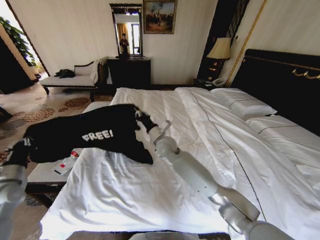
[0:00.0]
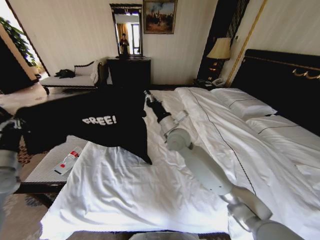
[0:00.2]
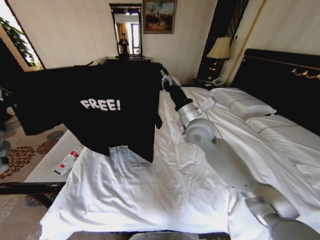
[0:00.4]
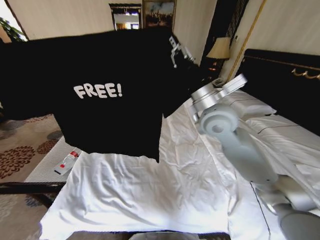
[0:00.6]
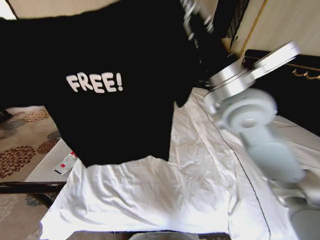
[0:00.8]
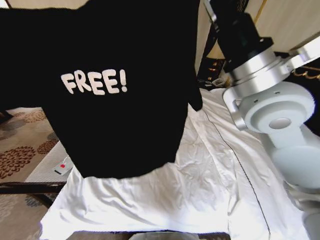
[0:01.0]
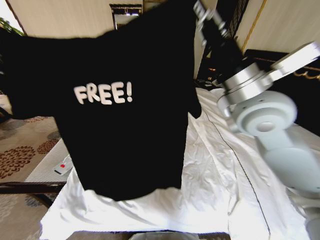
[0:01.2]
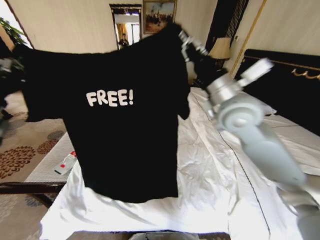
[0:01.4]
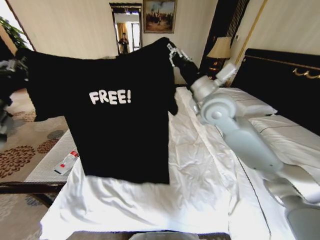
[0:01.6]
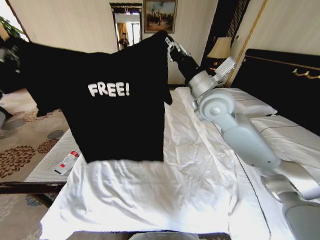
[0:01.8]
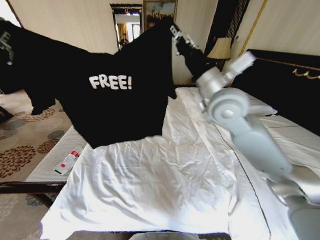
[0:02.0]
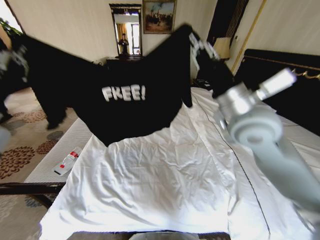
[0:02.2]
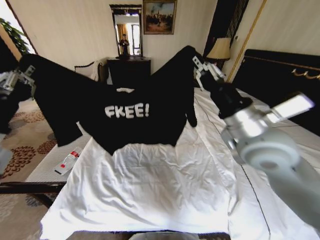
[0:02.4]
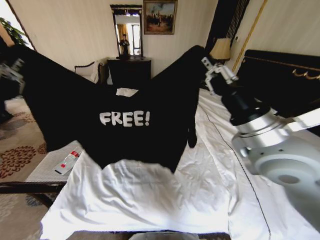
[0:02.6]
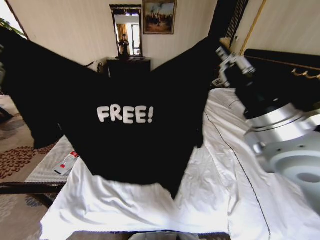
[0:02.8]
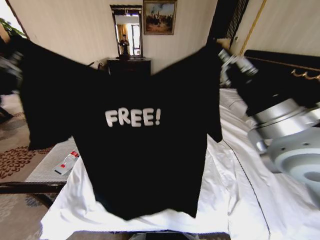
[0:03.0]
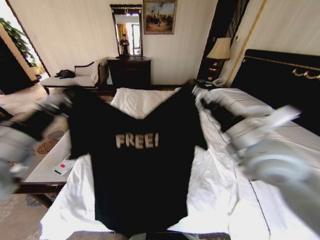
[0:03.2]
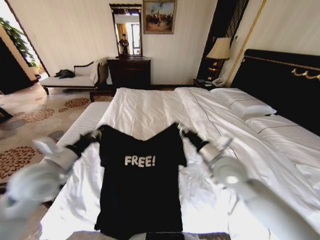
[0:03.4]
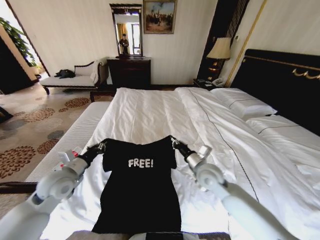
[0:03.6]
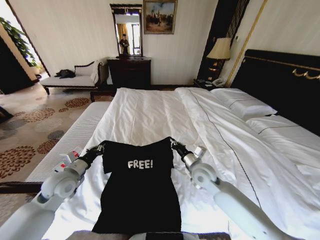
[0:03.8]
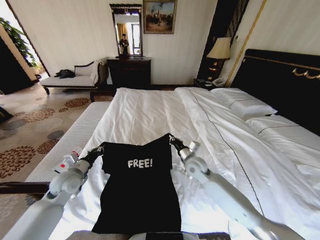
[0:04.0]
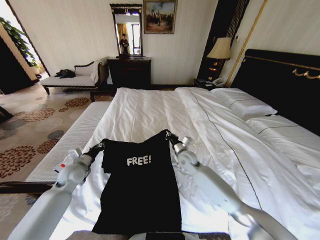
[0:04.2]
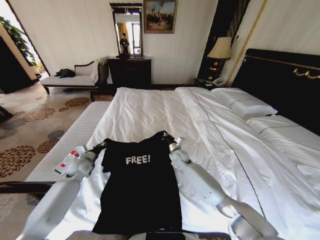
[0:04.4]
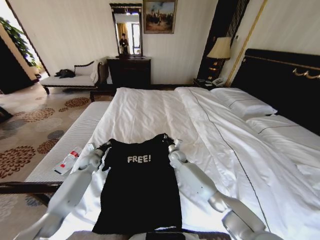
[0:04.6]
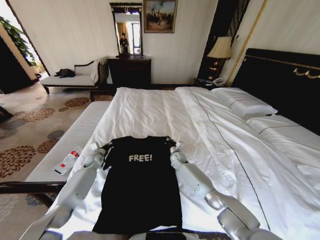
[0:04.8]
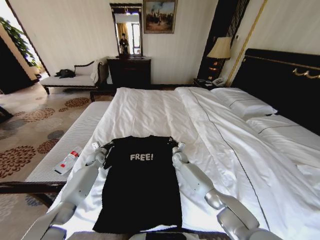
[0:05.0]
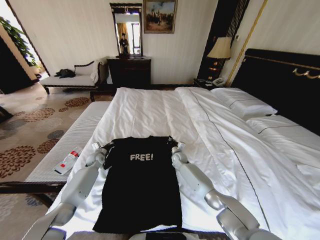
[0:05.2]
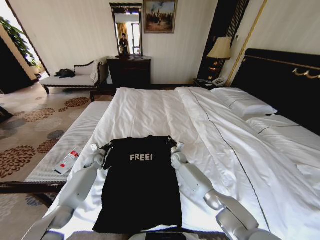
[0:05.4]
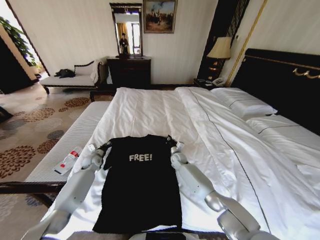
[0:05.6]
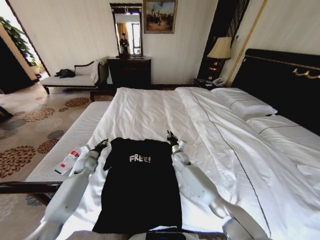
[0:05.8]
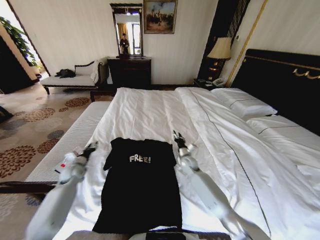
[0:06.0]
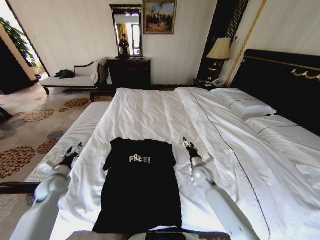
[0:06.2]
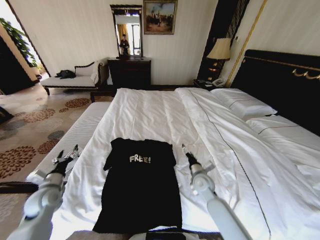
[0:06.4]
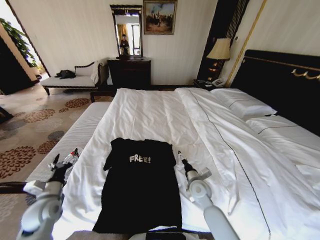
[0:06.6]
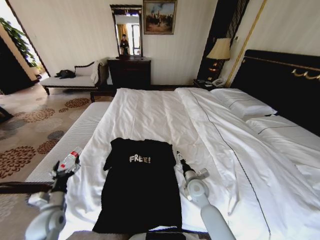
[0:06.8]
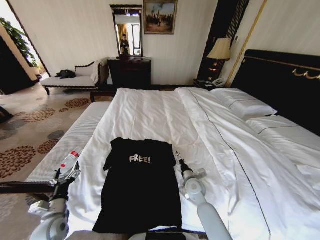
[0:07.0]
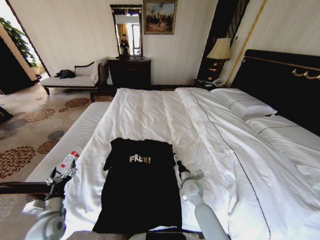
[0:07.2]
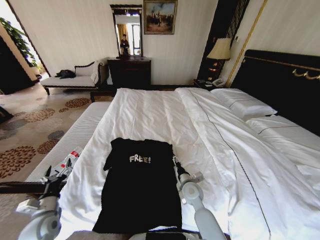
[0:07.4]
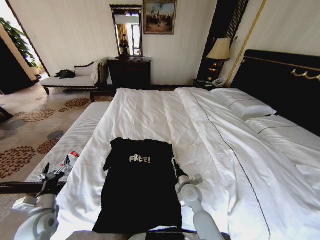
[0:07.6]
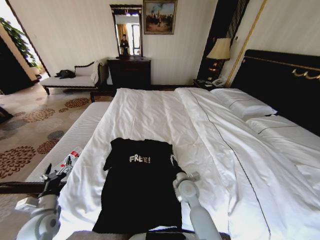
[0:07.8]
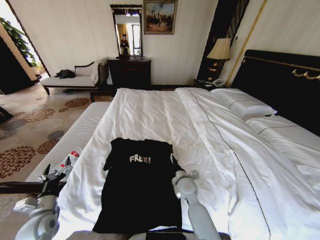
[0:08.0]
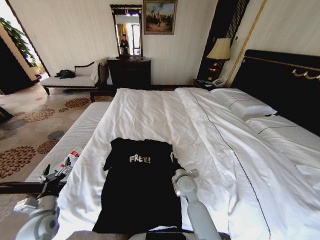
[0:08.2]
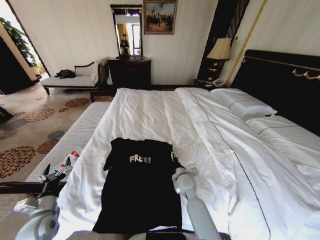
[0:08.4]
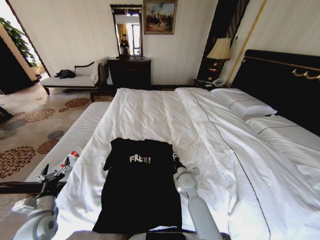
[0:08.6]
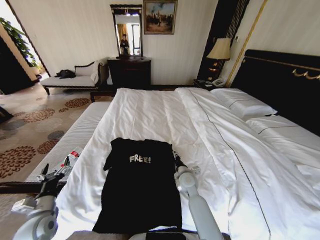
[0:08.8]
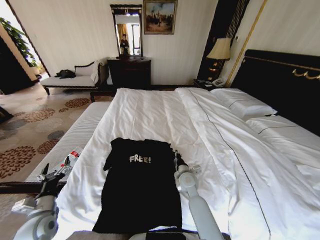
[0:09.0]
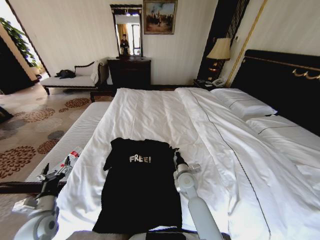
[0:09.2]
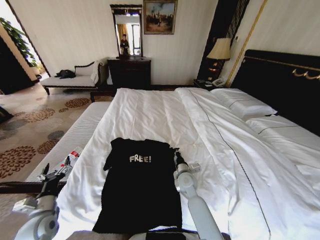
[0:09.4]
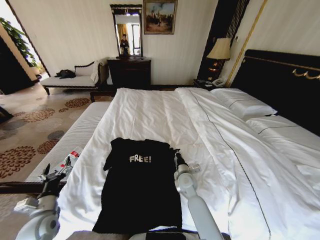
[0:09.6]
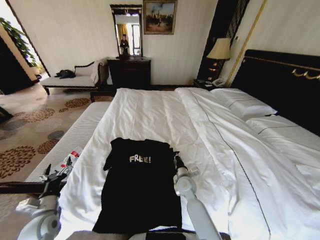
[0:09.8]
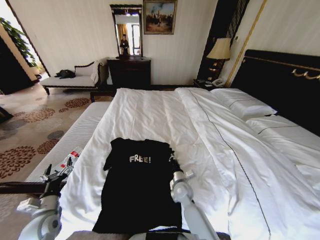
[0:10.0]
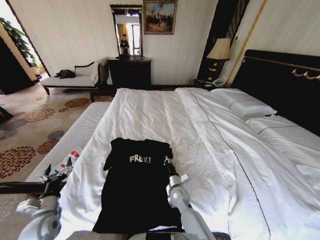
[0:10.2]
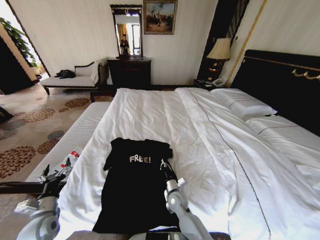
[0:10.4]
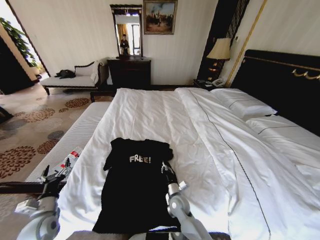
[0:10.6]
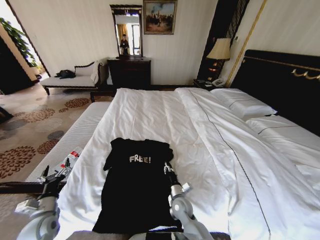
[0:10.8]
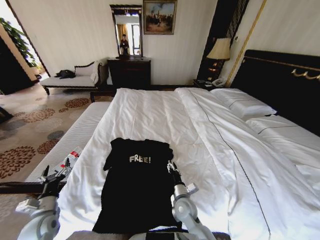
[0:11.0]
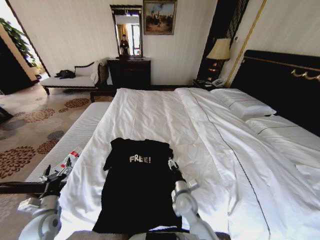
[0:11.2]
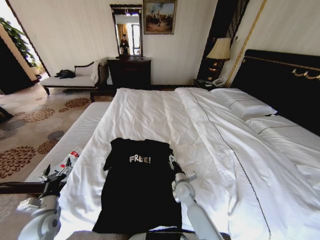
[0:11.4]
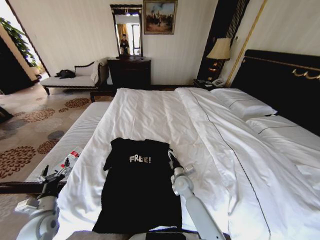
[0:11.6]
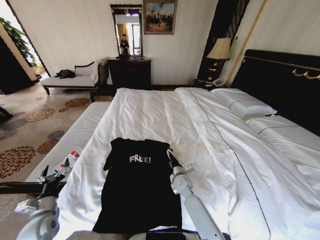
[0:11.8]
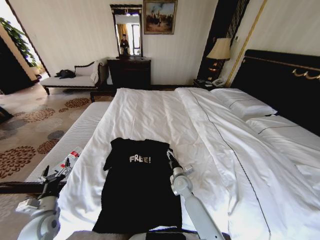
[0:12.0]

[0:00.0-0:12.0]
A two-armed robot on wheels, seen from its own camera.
Task of the whole recording: Fold the clothes on the bed.
0:00.0 to 0:01.6: The right gripper heads upward and to the right, covering about 25 cm. Meanwhile the left gripper moves upward, about 20 cm.
0:01.6 to 0:03.0: Both grippers move backward and to the right, approximately 15 cm.
0:03.0 to 0:04.4: Both grippers travel together downward and forward, some 40 cm.
0:04.4 to 0:06.0: The right gripper is displaced to the right by roughly 5 cm, and opens its fingers. Meanwhile the left gripper is displaced to the left by approximately 5 cm, goes forward and returns, roughly 10 cm each way, and opens up.
0:06.0 to 0:07.6: The two grippers go roughly 15 cm backward. The left gripper opens; the right gripper opens its fingers.
0:07.6 to 0:09.0: The right gripper moves forward, some 5 cm, and closes its fingers.
0:09.0 to 0:10.4: The right gripper is displaced downward and backward by roughly 10 cm.
0:10.4 to 0:12.0: The right gripper moves forward, approximately 5 cm, and opens its fingers.

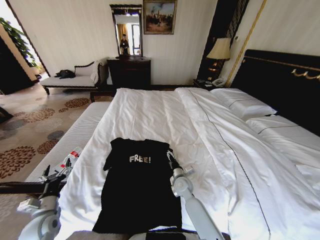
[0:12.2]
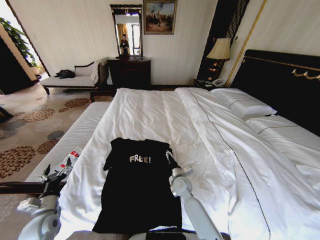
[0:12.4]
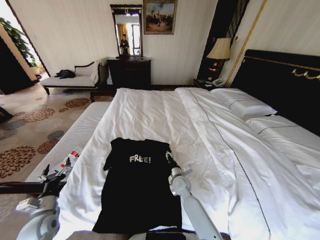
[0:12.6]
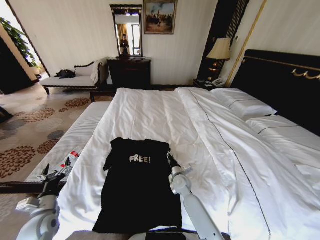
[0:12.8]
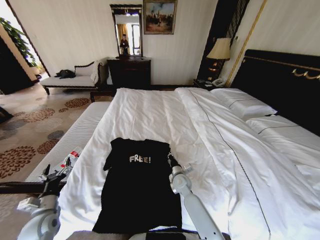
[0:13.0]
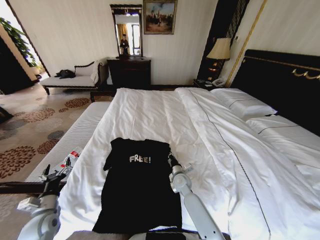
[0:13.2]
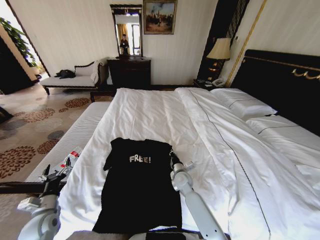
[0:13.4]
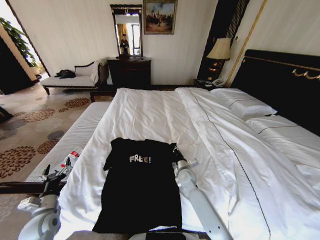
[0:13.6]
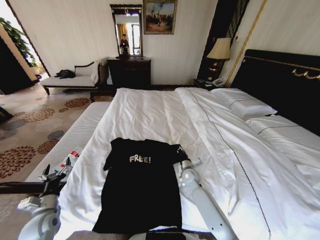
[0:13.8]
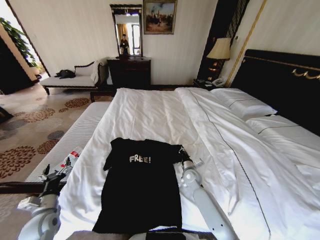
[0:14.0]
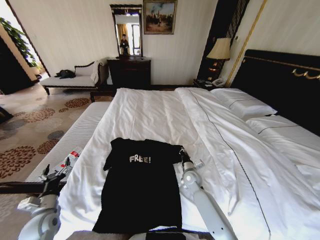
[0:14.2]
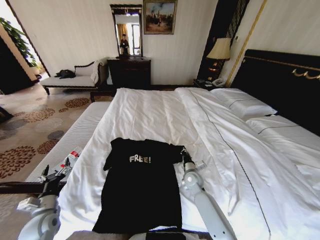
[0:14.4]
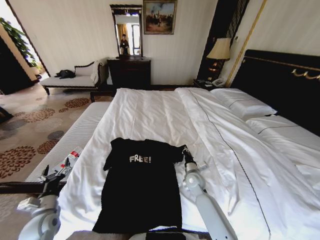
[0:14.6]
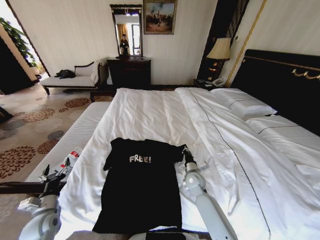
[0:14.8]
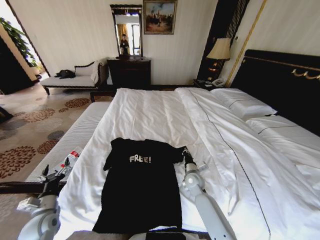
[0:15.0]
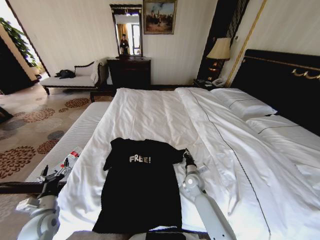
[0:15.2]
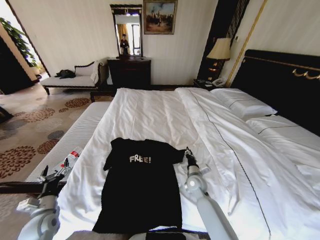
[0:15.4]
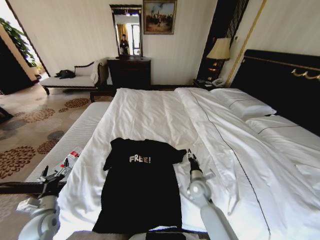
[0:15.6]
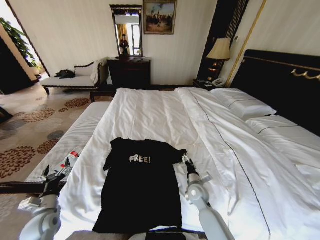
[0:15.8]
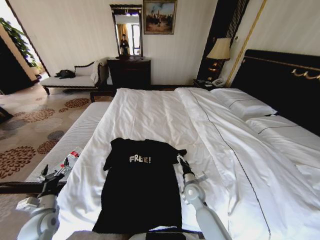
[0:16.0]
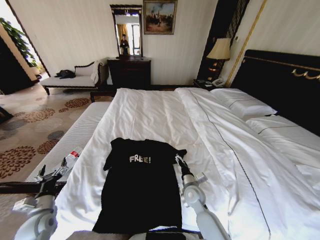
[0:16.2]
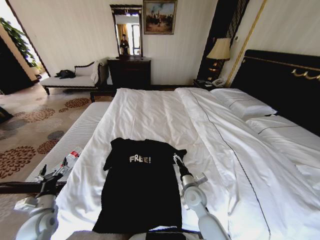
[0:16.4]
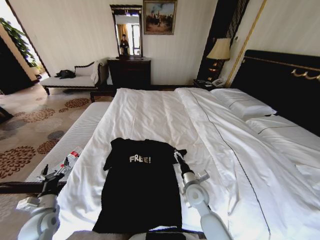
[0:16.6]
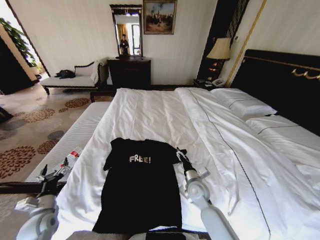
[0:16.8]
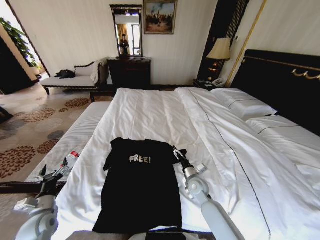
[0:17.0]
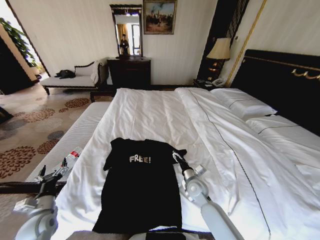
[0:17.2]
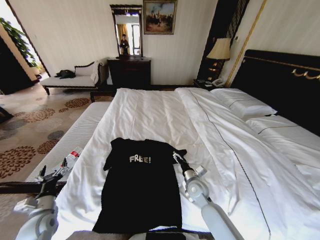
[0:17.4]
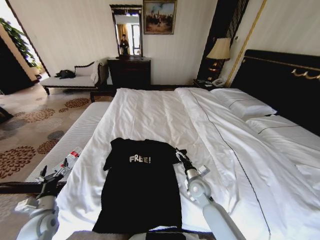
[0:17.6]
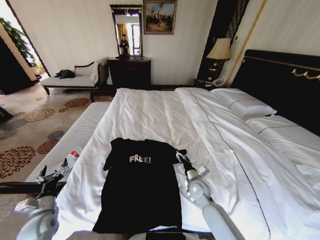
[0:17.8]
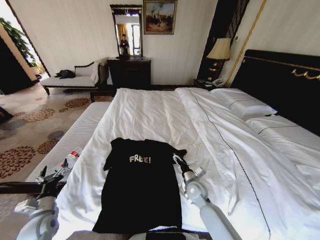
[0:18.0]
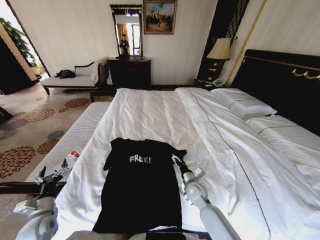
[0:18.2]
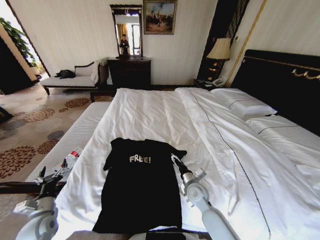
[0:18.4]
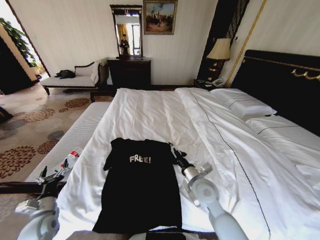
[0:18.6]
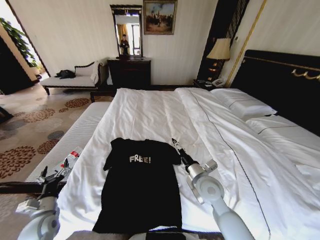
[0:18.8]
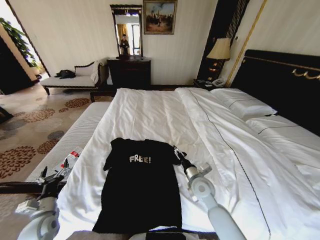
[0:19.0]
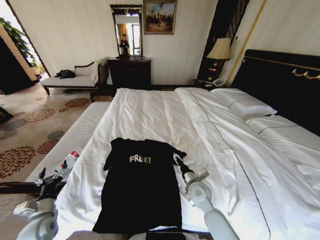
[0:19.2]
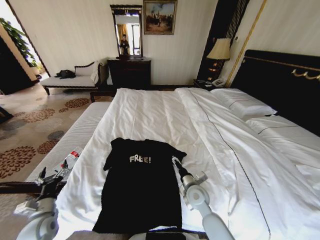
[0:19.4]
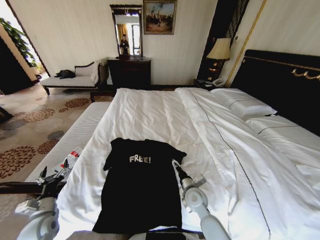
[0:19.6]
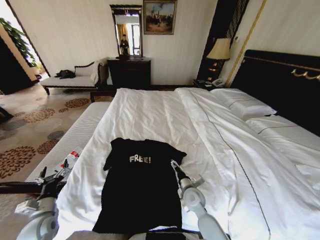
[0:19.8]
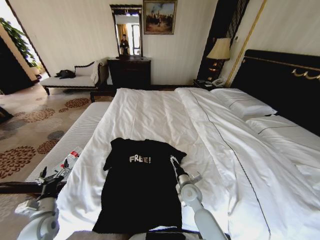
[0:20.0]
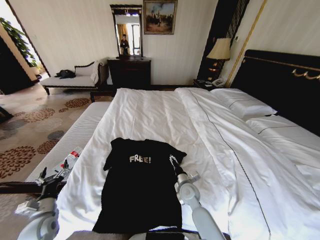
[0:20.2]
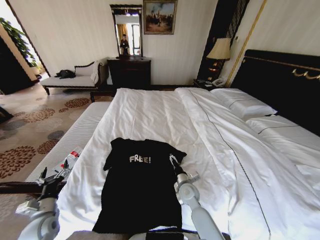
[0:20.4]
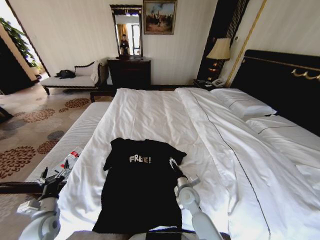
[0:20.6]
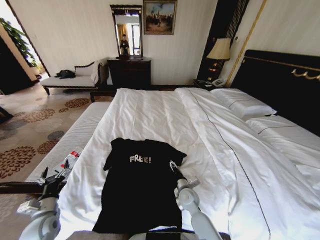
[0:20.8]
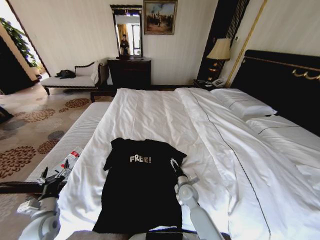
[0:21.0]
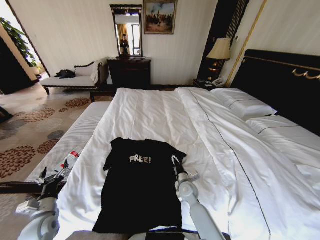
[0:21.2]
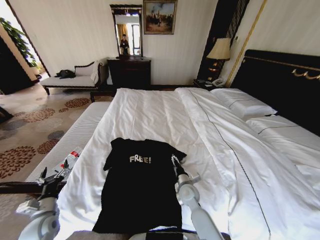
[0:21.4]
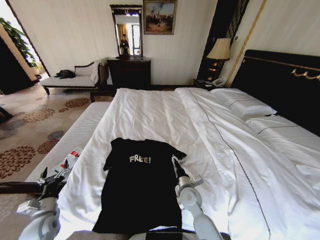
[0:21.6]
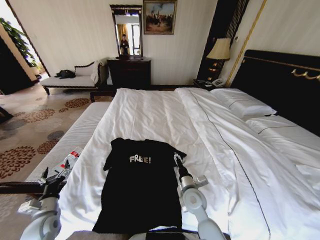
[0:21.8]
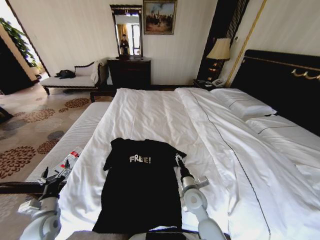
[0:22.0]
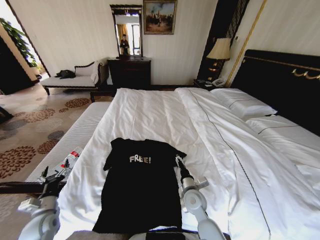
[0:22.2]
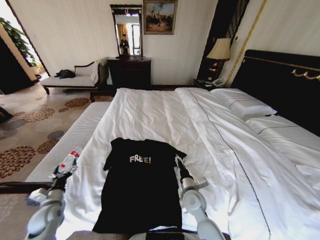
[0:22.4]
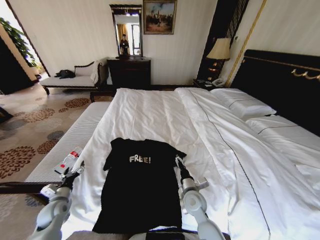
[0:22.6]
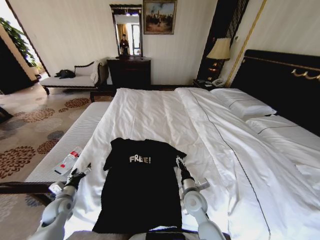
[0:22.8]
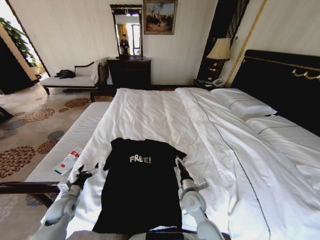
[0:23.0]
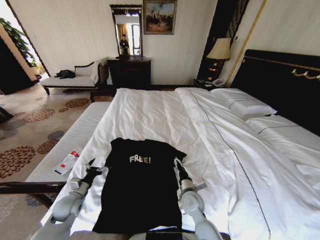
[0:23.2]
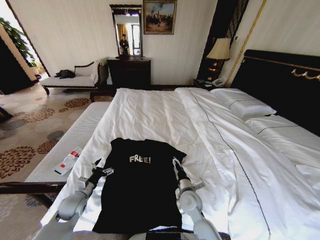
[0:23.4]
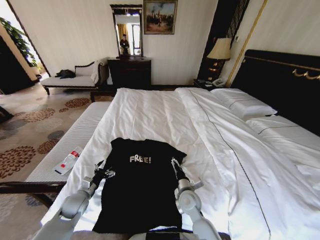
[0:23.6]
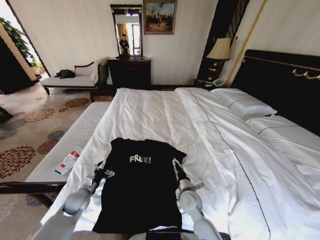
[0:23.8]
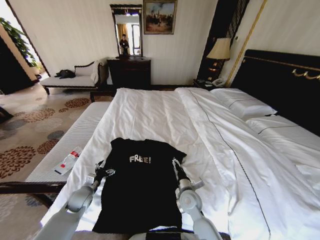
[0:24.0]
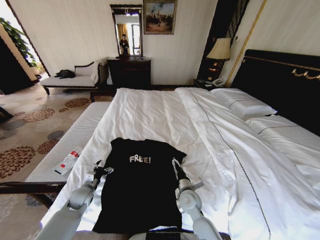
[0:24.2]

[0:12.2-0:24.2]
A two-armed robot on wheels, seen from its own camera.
Task of the whole recording: Fold the clothes on the bed.
0:12.2 to 0:13.8: The right gripper changes place by some 5 cm, and closes up.
0:13.8 to 0:15.2: The grippers move only a little.
0:15.2 to 0:16.6: The right gripper shifts about 10 cm backward and upward, and opens.
0:16.6 to 0:18.2: The right gripper ends up some 5 cm from where it was.
0:18.2 to 0:19.8: The right gripper moves roughly 15 cm upward and comes back.
0:19.8 to 0:21.2: The right gripper ends up about 5 cm from where it was.
0:21.2 to 0:22.6: The left gripper goes about 5 cm forward; the right gripper heads backward and upward, covering some 10 cm.
0:22.6 to 0:24.2: The left gripper is displaced to the right and forward by about 10 cm.
